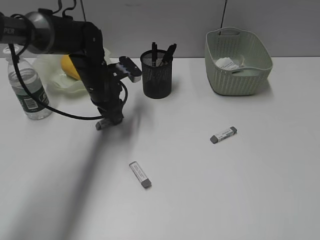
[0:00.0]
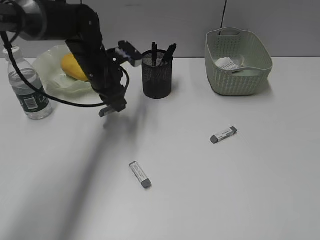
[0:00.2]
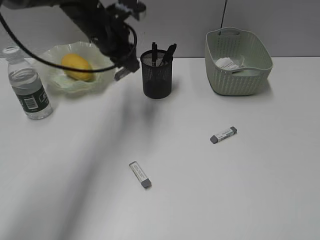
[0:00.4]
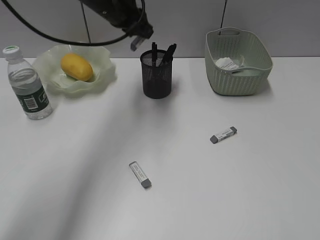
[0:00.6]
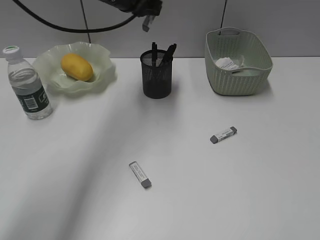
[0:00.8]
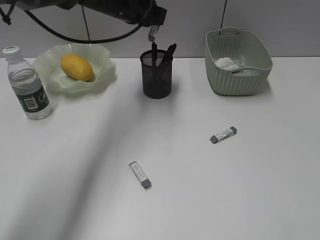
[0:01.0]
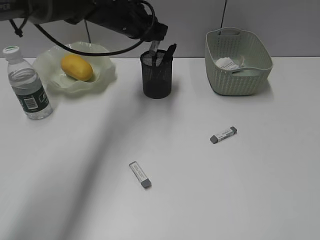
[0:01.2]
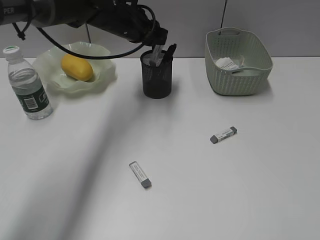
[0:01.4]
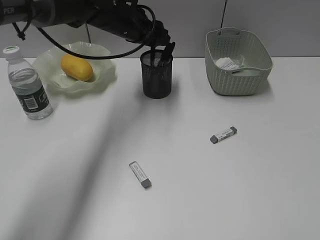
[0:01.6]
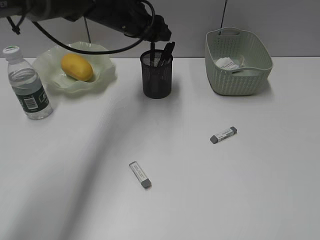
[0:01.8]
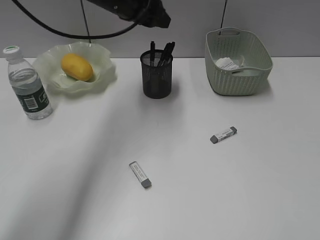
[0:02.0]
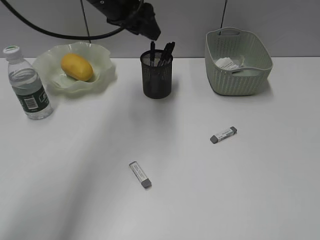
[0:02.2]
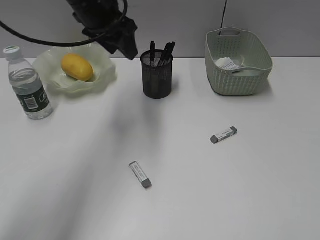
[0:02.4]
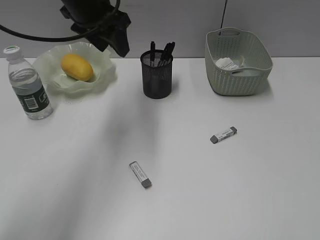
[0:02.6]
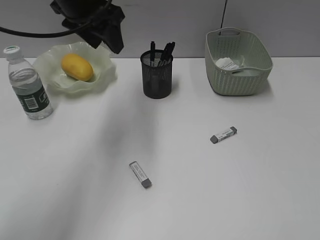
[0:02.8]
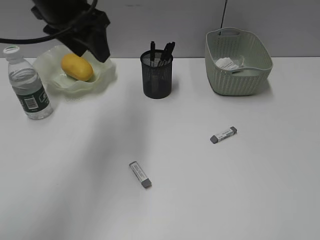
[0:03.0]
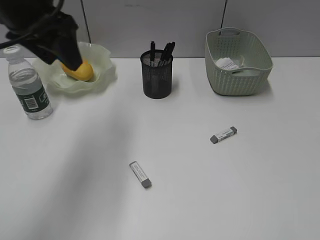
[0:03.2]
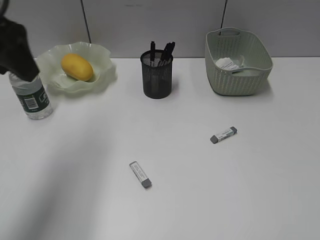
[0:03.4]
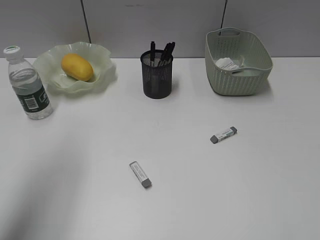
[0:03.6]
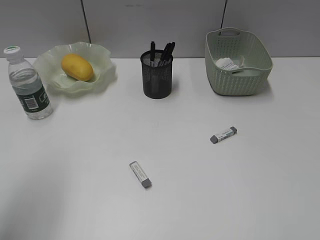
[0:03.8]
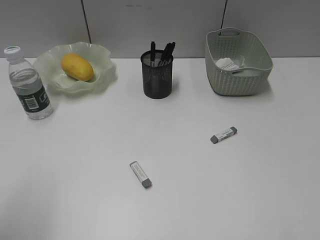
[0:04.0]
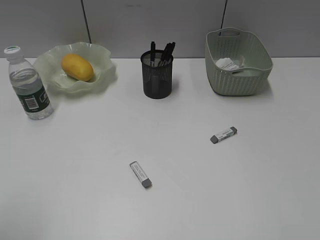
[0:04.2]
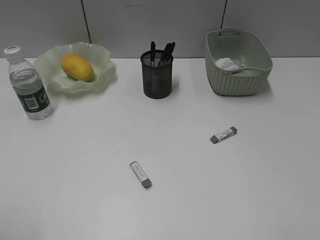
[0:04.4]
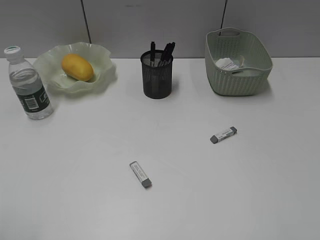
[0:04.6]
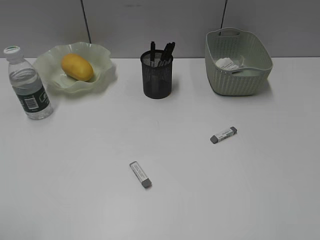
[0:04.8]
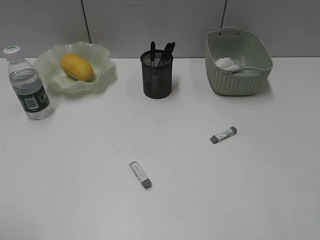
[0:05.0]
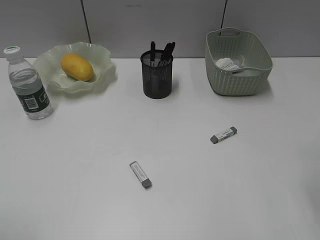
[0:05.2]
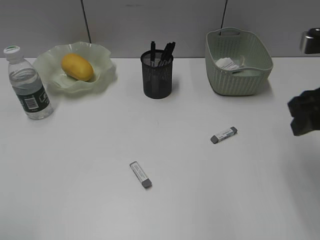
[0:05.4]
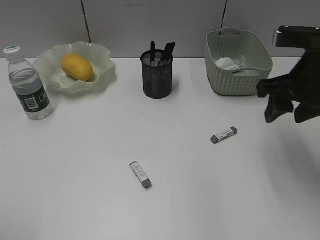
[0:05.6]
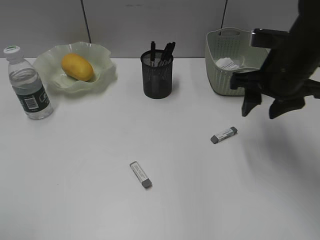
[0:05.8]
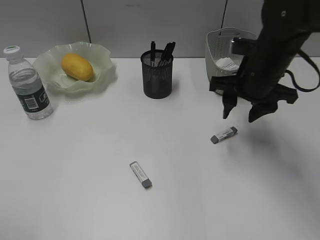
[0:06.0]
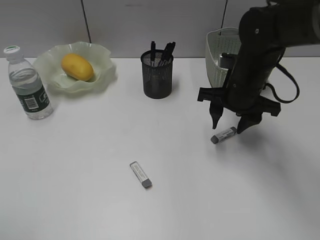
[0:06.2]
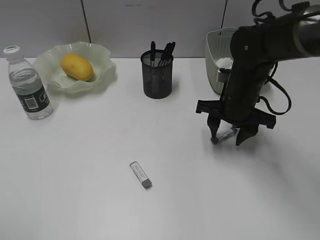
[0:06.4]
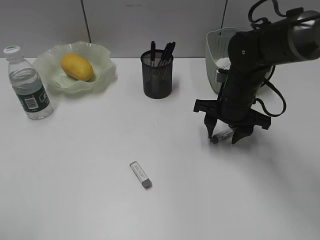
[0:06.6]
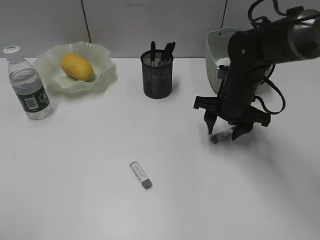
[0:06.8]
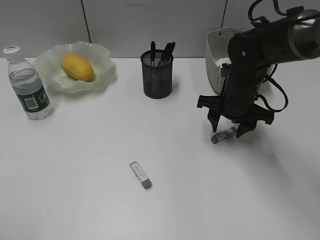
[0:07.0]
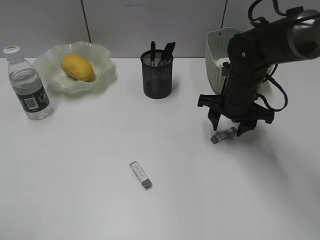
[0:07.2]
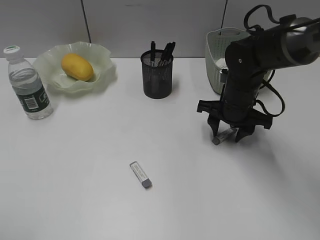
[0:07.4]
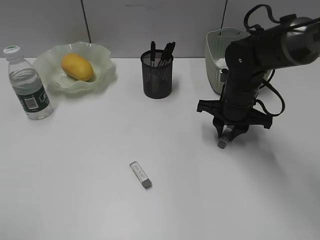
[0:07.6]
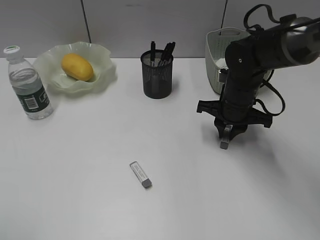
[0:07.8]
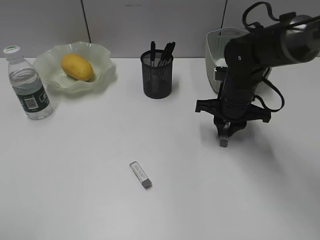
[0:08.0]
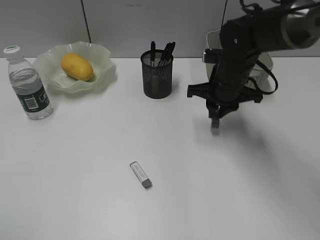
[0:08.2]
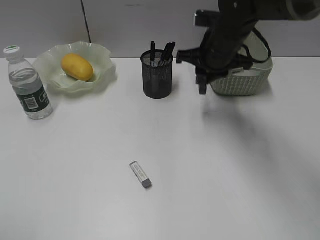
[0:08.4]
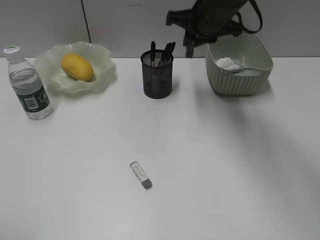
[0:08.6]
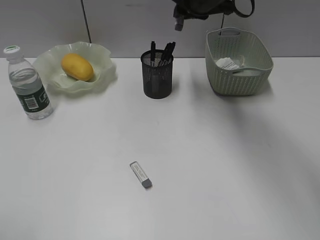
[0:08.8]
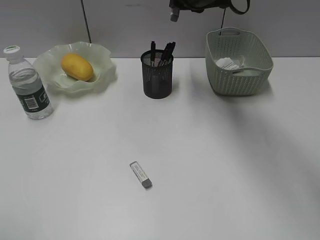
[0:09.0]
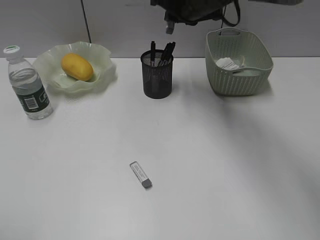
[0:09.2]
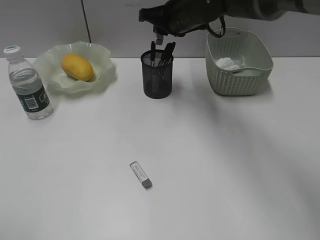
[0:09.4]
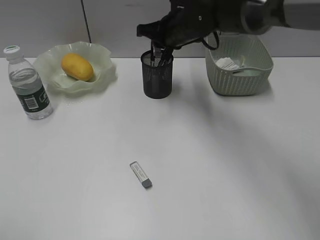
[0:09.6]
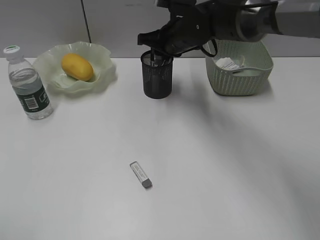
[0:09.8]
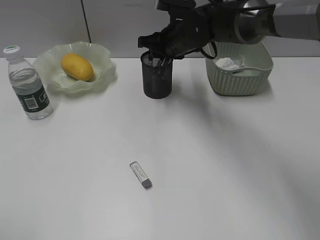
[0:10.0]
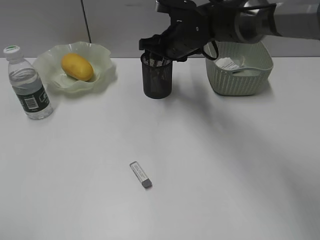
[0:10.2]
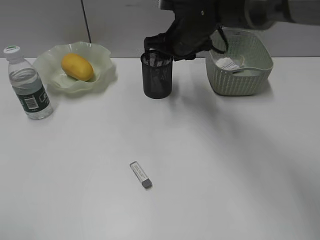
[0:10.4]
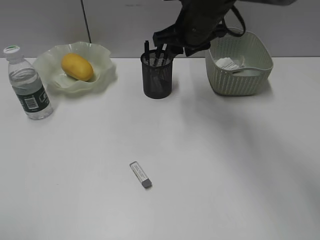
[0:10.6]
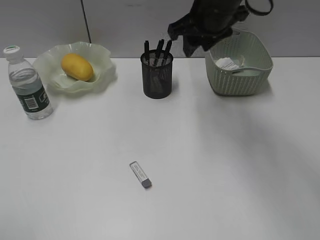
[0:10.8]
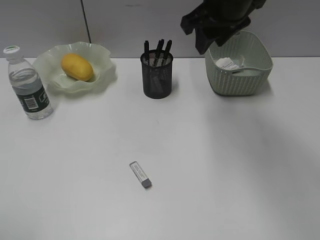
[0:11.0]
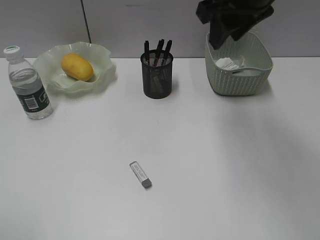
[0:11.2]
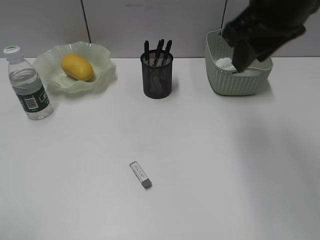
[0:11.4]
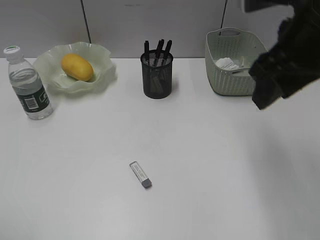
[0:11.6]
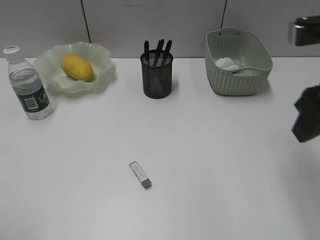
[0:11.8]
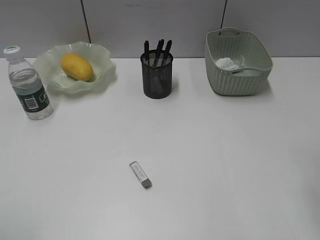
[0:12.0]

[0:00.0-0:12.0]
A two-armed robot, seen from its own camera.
Step, 0:00.0 to 0:01.8: Place the eraser in pen holder with left gripper.
Step, 0:02.0 to 0:07.8: Grasp the eraser with right gripper.
Step, 0:08.0 to 0:10.0: Place the eraser in pen holder with right gripper.
0:00.0 to 0:01.6: The left gripper goes approximately 10 cm upward, forward and to the right, and opens up.
0:01.6 to 0:03.0: The left gripper goes approximately 20 cm backward, upward and to the left.
0:03.0 to 0:04.4: The left gripper heads backward and to the left, covering some 35 cm.
0:04.4 to 0:06.0: The right gripper is displaced forward and to the left by approximately 35 cm.
0:06.0 to 0:07.6: The right gripper moves downward, some 10 cm, and closes.
0:07.6 to 0:09.0: The right gripper is displaced upward, forward and to the left by some 20 cm.
0:09.0 to 0:10.4: The right gripper goes approximately 10 cm downward, and opens its fingers.
0:10.4 to 0:12.0: The right gripper is displaced backward and to the right by approximately 35 cm.

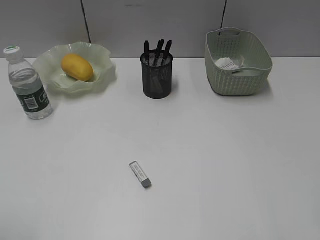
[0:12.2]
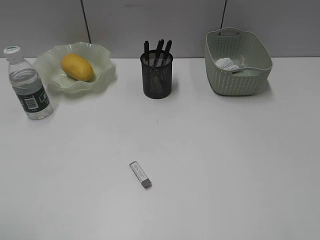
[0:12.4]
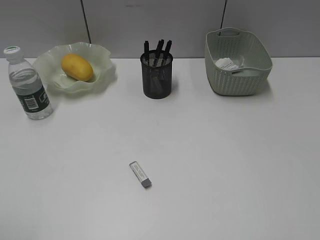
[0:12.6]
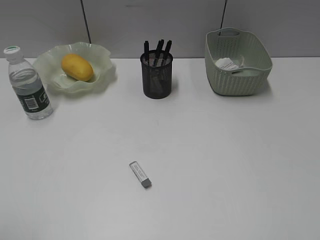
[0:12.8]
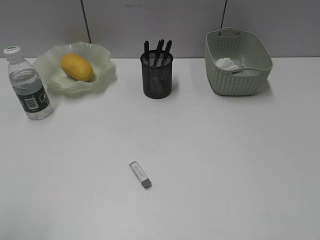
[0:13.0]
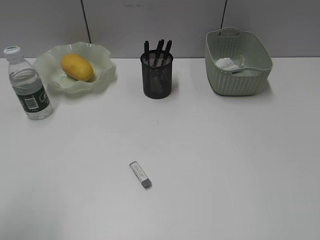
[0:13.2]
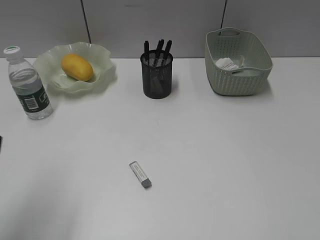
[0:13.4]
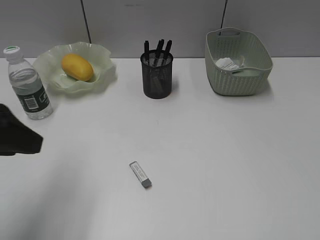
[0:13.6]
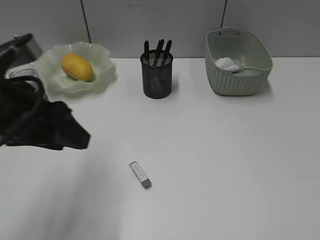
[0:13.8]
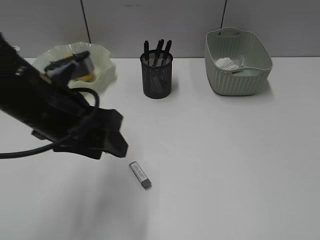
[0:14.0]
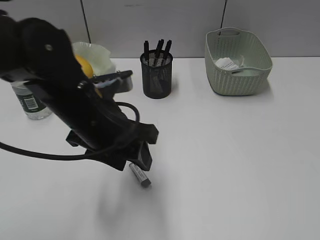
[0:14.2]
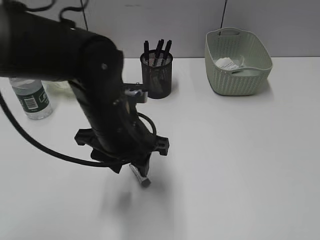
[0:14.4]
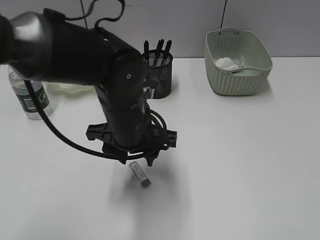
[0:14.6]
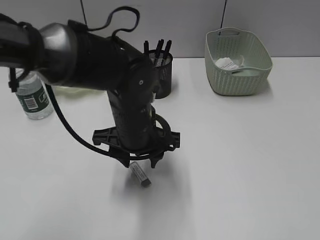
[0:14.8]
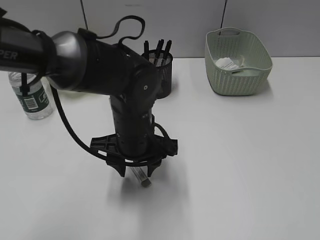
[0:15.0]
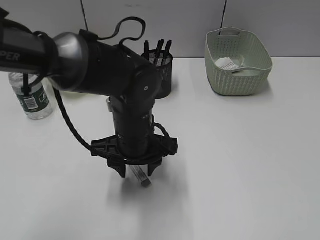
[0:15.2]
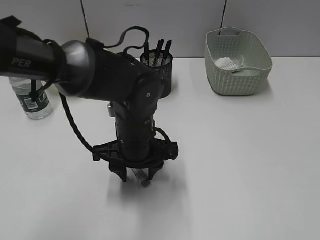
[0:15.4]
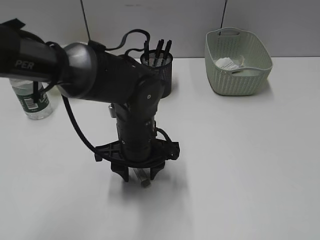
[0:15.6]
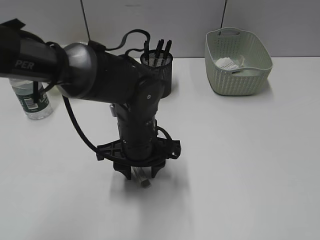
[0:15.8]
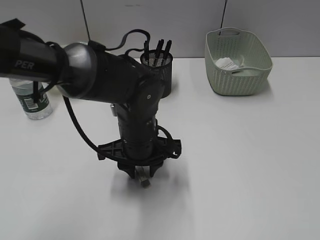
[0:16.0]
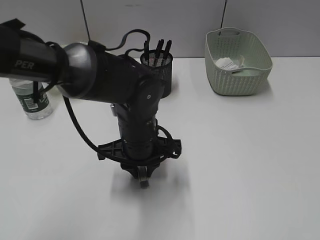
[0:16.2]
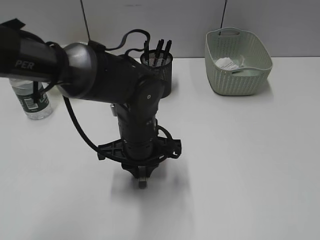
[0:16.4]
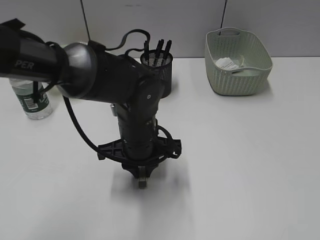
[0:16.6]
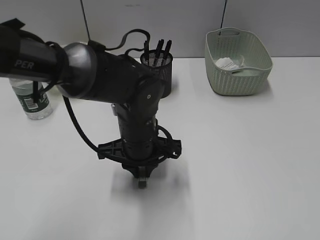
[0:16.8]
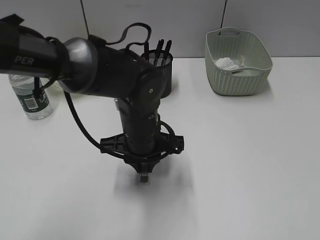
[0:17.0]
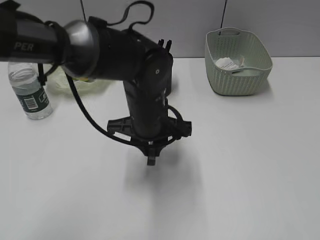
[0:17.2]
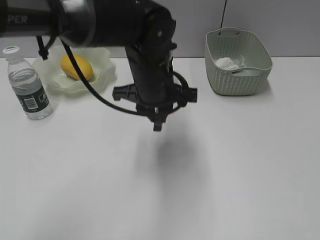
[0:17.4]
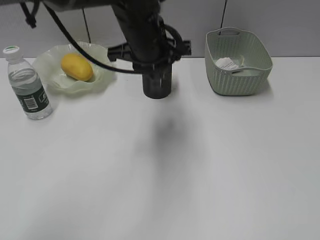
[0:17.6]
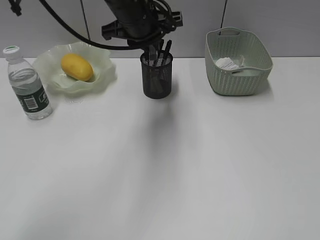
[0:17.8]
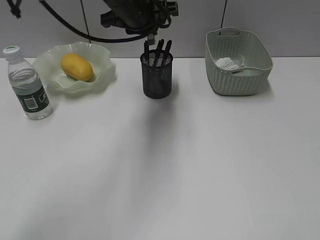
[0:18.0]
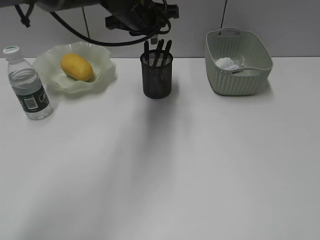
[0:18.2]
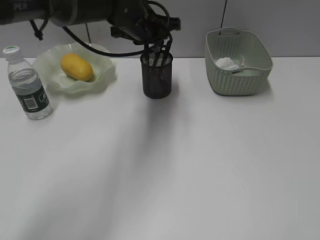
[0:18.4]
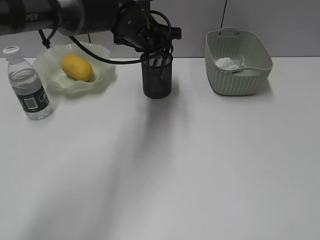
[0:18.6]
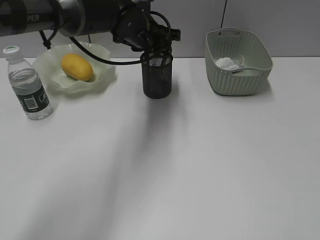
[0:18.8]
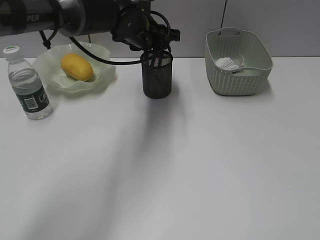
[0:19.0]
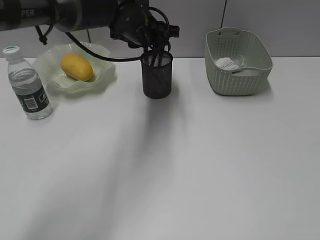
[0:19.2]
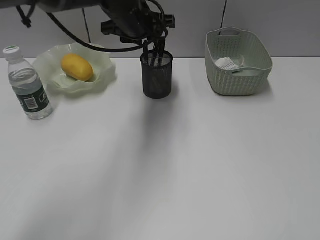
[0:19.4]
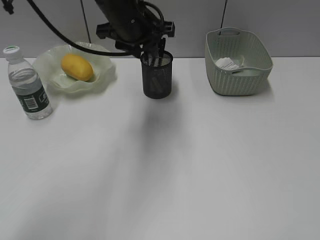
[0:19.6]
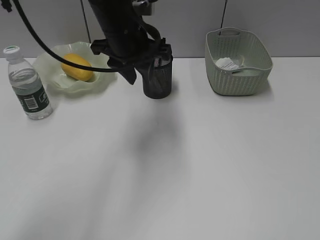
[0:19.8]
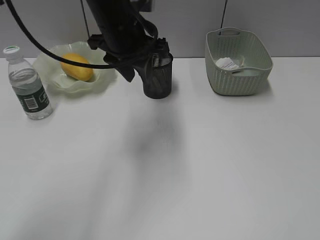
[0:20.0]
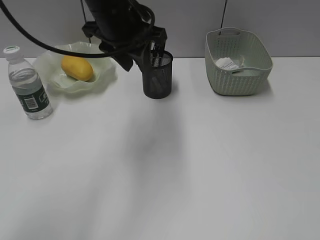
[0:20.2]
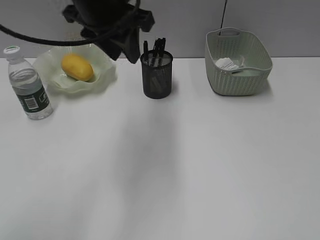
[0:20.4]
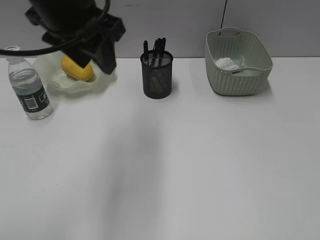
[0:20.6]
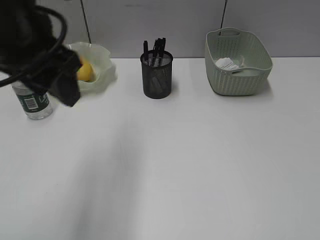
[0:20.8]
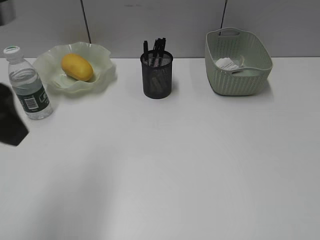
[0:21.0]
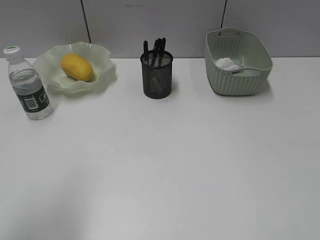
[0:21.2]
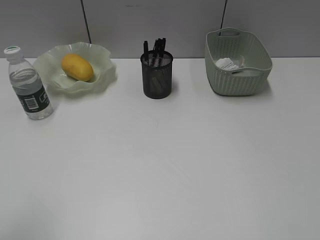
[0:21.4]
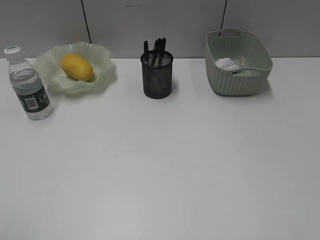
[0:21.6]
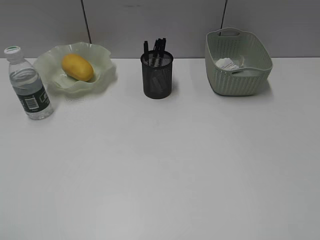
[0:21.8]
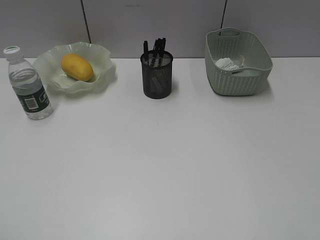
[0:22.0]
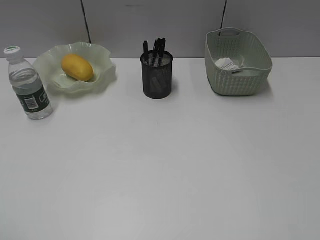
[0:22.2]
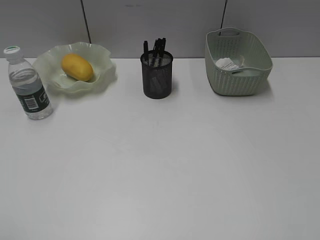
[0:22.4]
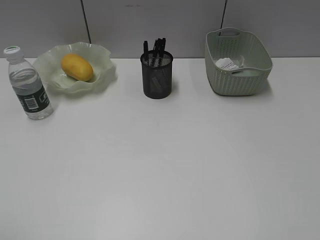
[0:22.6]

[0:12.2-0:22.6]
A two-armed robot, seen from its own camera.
Step, 0:12.2 to 0:16.8: Grasp the eraser with left gripper.
Step, 0:17.0 to 0:19.4: Place the eraser in pen holder with left gripper.
0:12.2 to 0:13.6: The left gripper heads forward and to the right, covering roughly 15 cm.
0:13.6 to 0:15.2: The left gripper travels to the right, downward and forward by about 25 cm.
0:15.2 to 0:16.6: The left gripper closes up.
0:16.6 to 0:18.2: The left gripper heads forward and upward, covering roughly 20 cm.
0:18.2 to 0:19.6: The left gripper opens.
0:19.6 to 0:21.2: The left gripper moves backward and to the left, approximately 35 cm.
0:21.2 to 0:22.6: The left gripper heads backward and to the left, covering some 10 cm.
